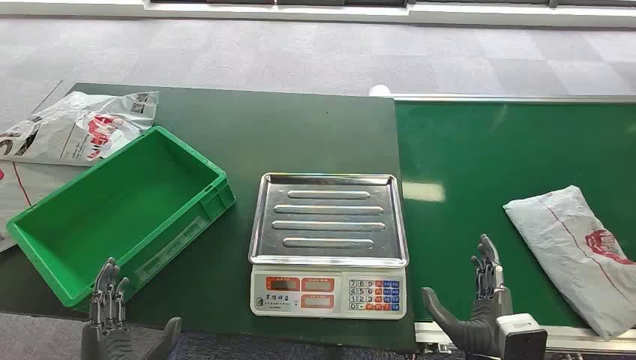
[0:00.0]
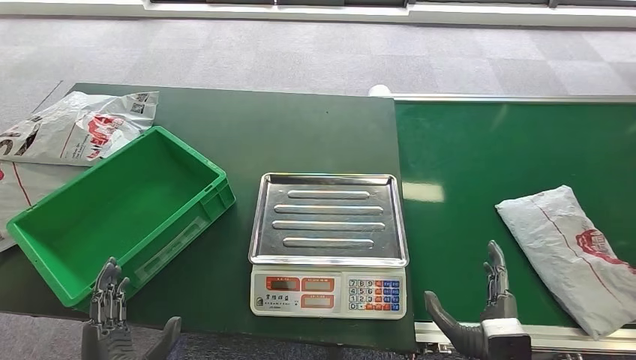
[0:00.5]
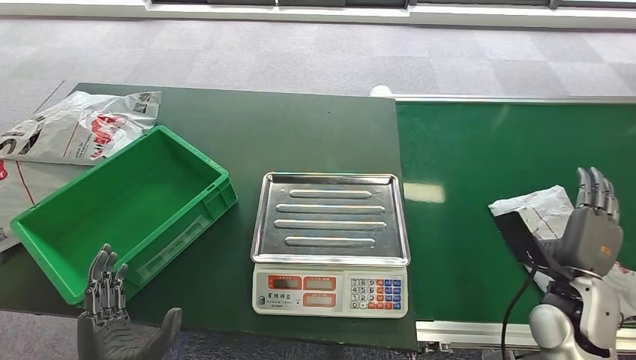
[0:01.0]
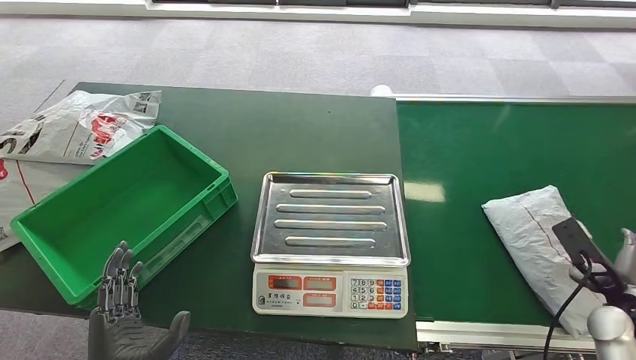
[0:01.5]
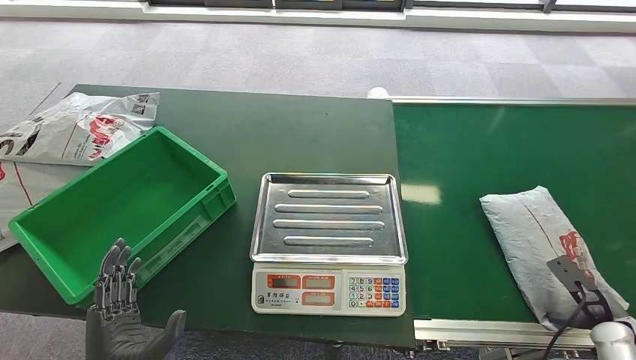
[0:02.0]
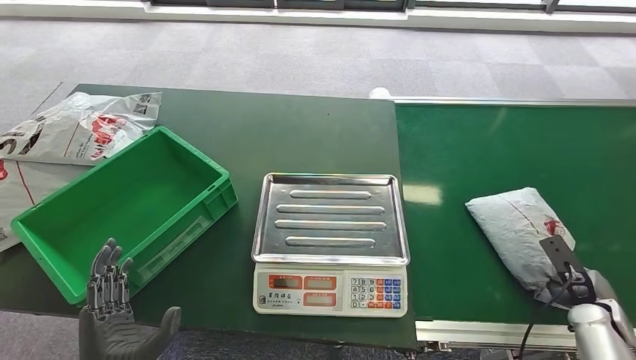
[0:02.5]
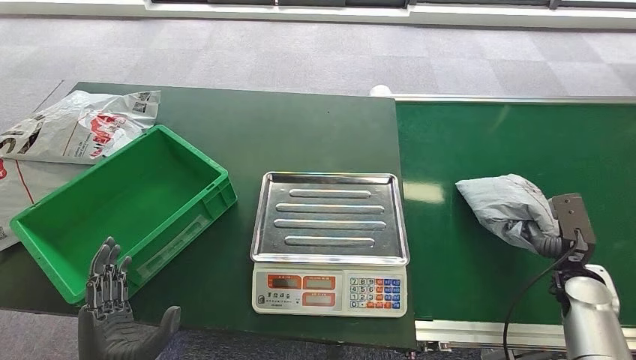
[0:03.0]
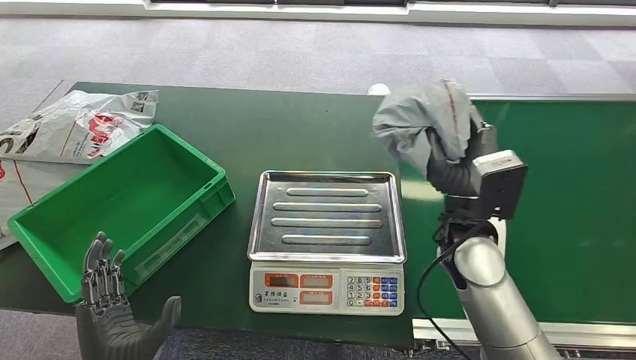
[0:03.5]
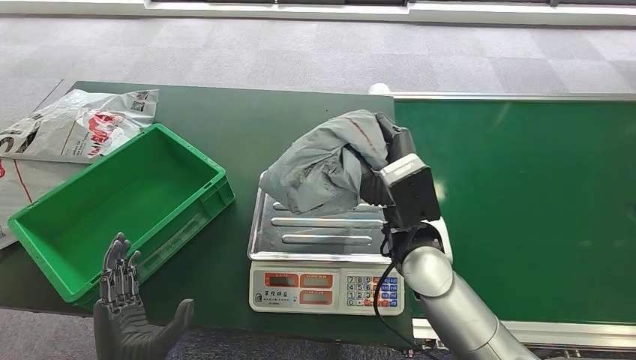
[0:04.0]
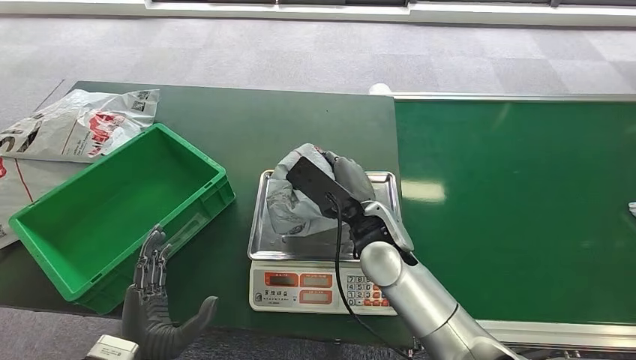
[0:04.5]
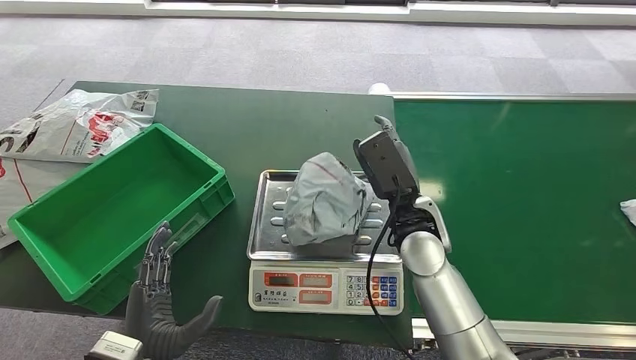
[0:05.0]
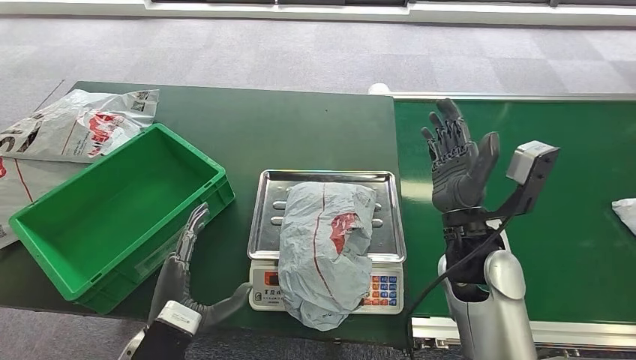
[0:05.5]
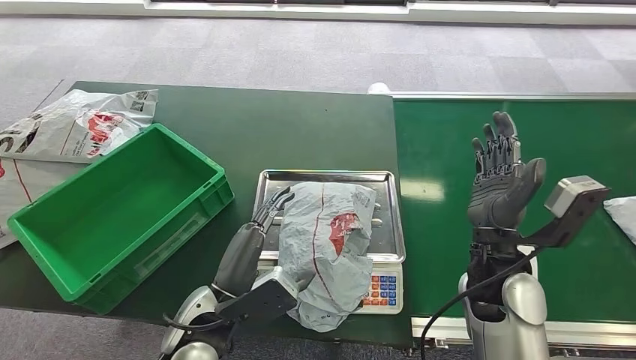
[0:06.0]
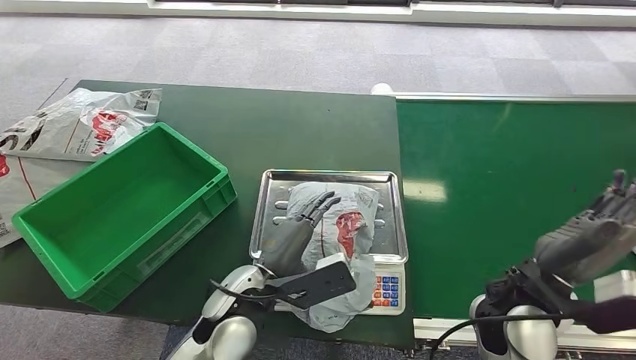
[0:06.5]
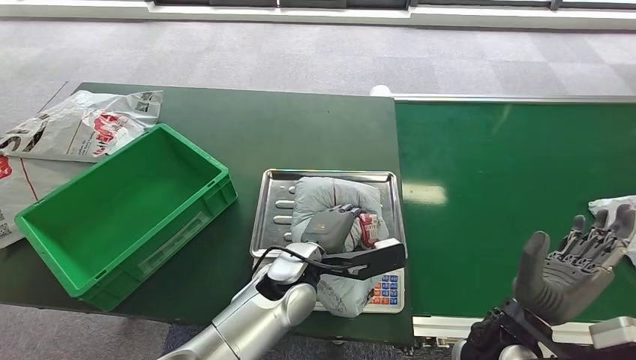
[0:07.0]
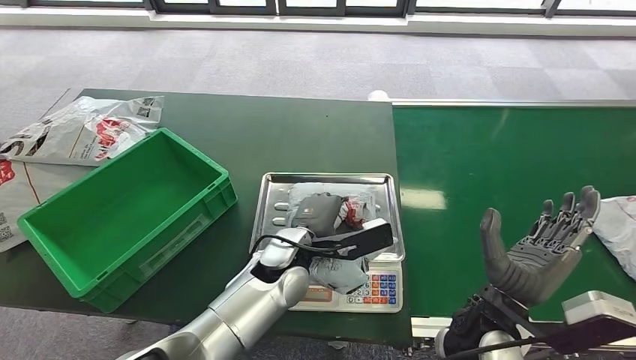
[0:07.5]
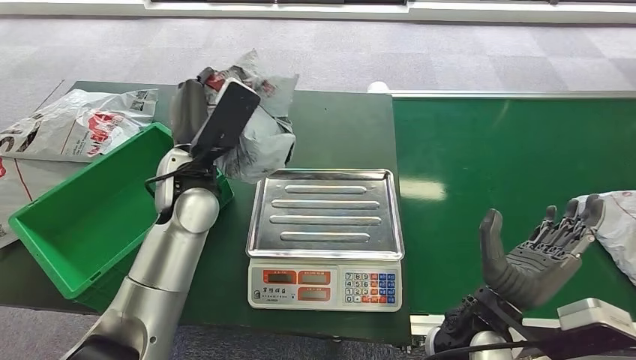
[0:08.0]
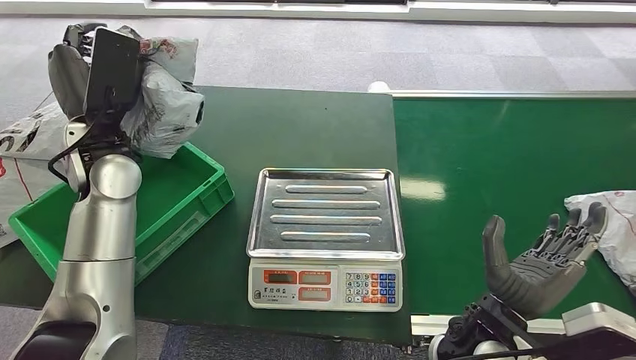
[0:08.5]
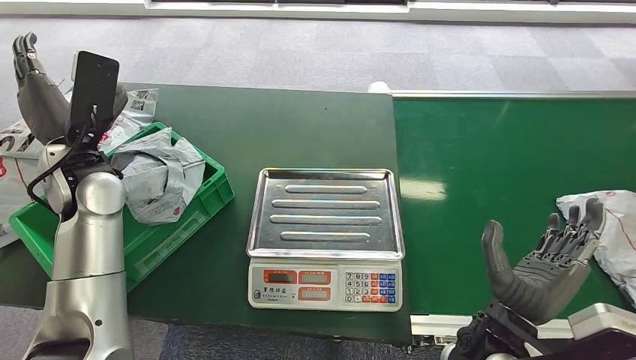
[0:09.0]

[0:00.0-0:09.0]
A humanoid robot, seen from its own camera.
Task of the whole recording: Weigh the package on the weighing device and place it in the left basket.
Step, 0:00.0 to 0:03.5: Pick up the package from the conveyor belt.
Step, 0:04.0 to 0:05.5: Place the package onto the inbound machine.
Step, 0:06.0 to 0:08.0: Pick up the package from the inbound machine.
Step, 0:08.5 to 0:09.0: Place the package into the parcel locker.
